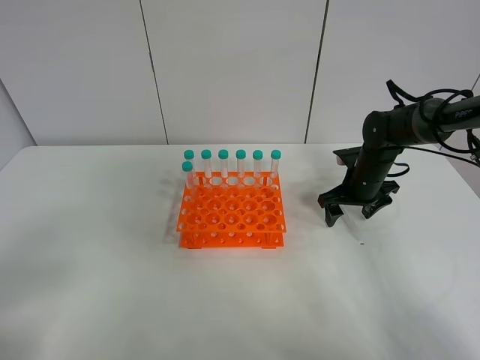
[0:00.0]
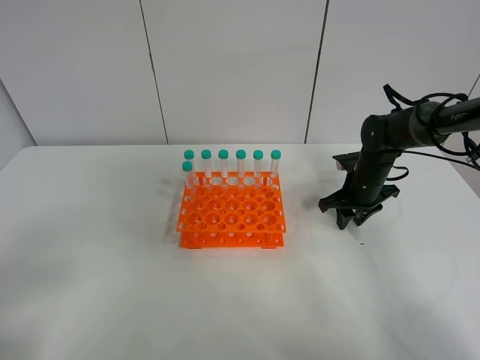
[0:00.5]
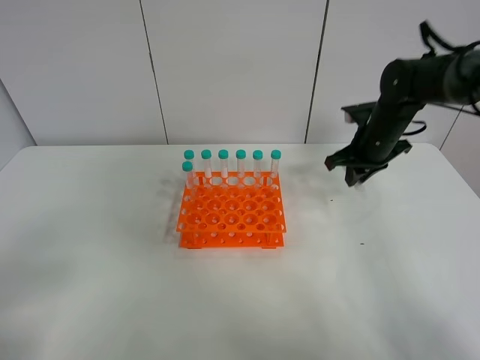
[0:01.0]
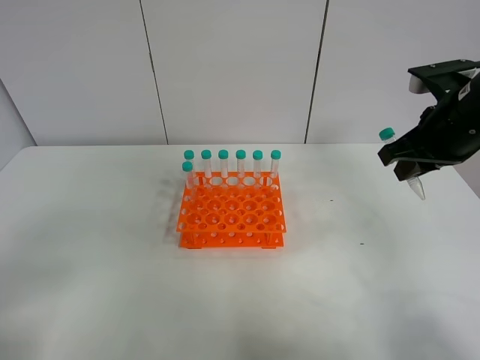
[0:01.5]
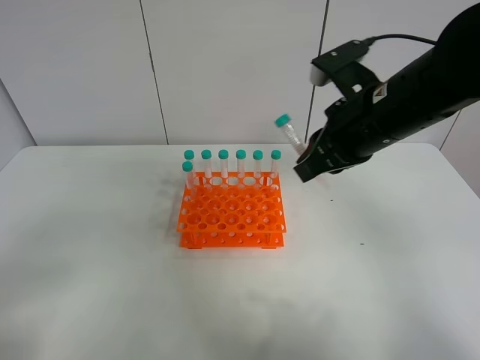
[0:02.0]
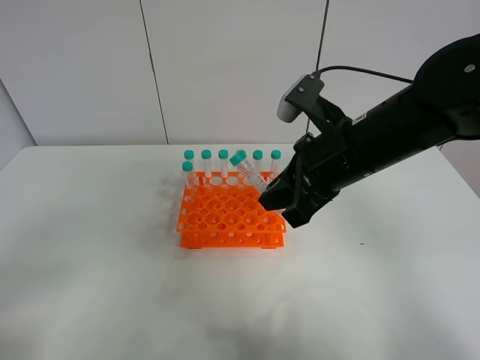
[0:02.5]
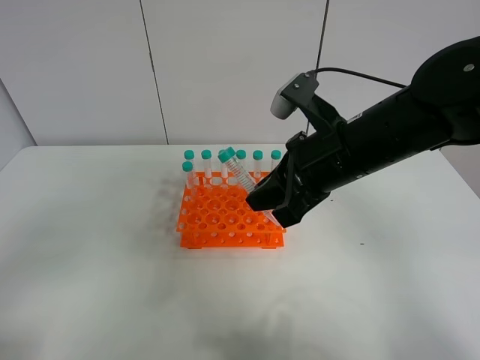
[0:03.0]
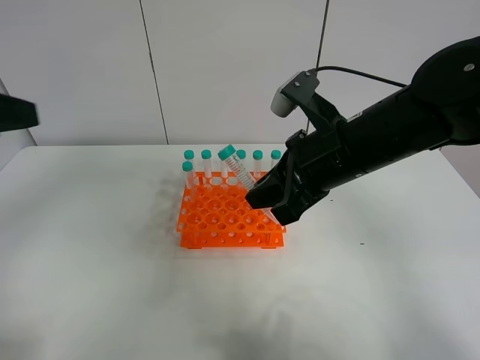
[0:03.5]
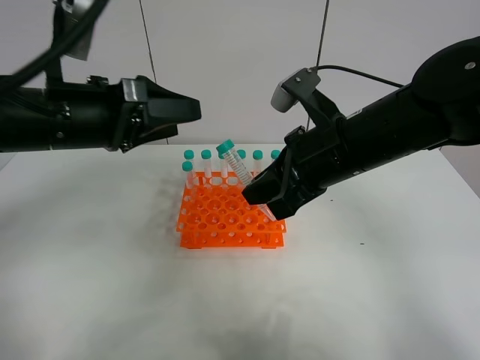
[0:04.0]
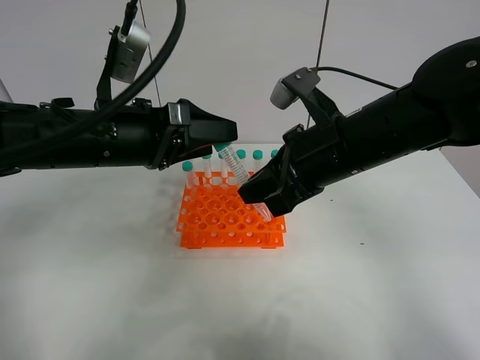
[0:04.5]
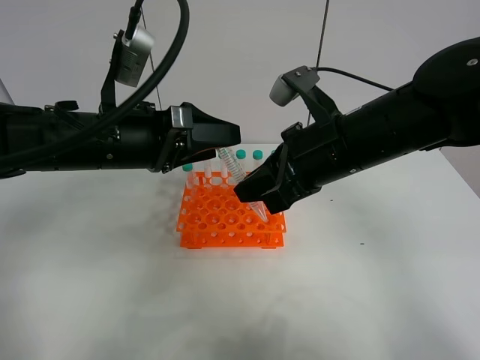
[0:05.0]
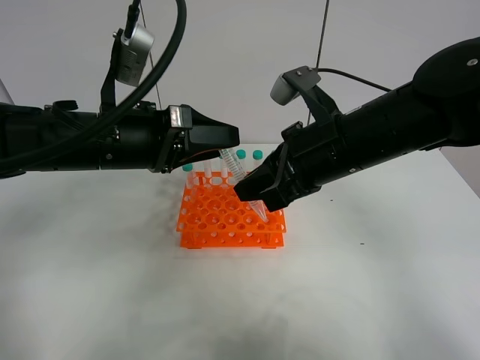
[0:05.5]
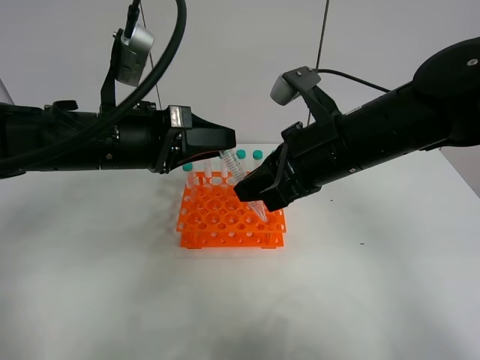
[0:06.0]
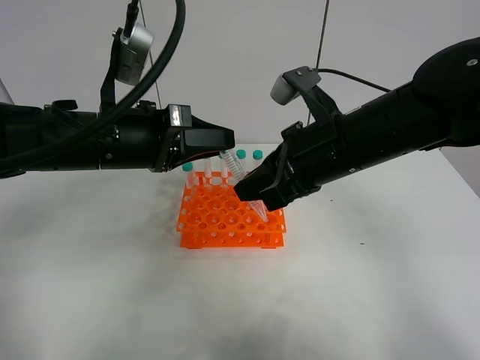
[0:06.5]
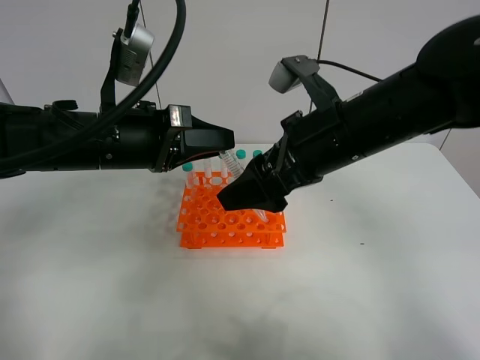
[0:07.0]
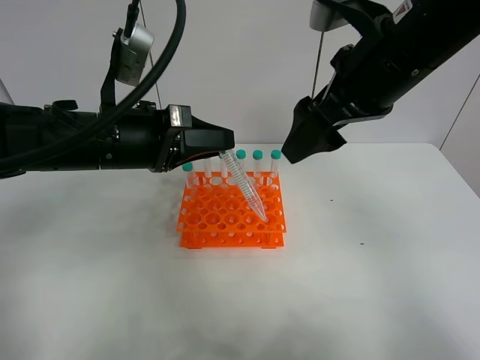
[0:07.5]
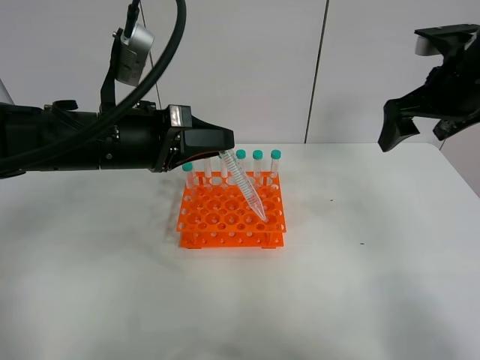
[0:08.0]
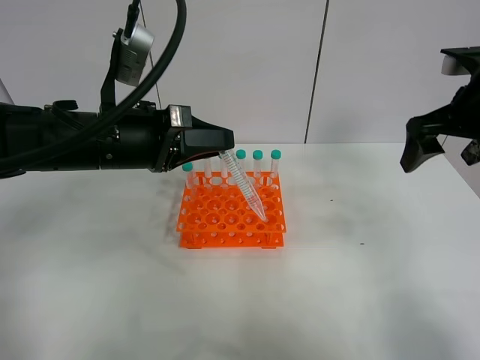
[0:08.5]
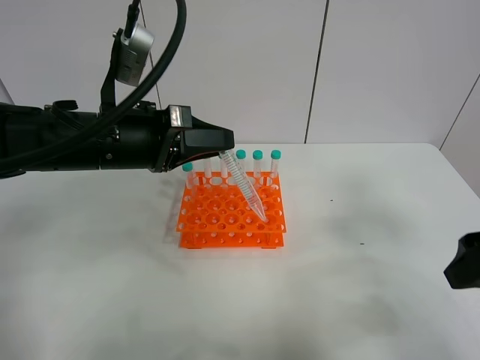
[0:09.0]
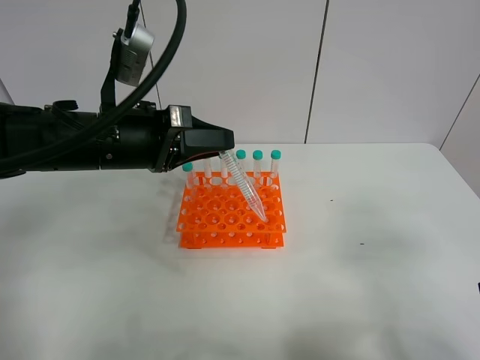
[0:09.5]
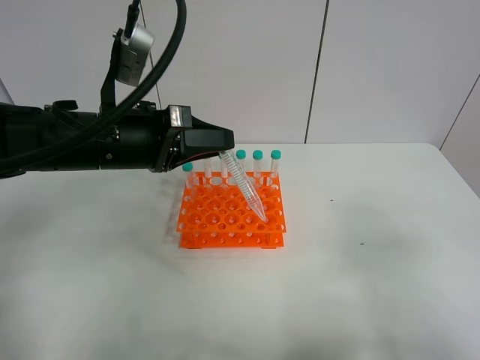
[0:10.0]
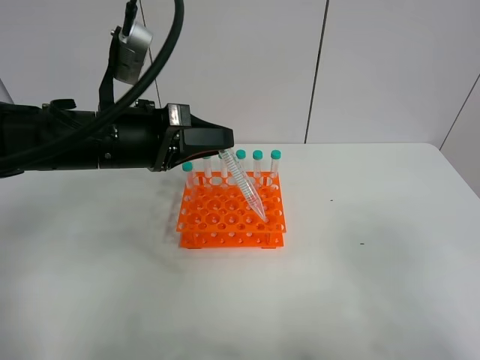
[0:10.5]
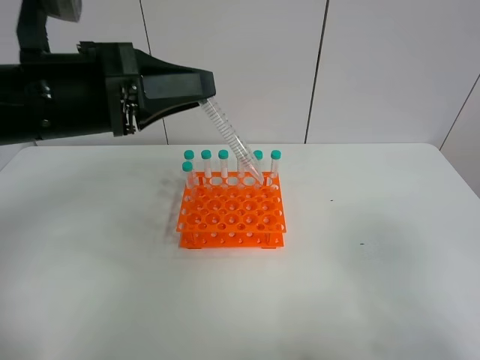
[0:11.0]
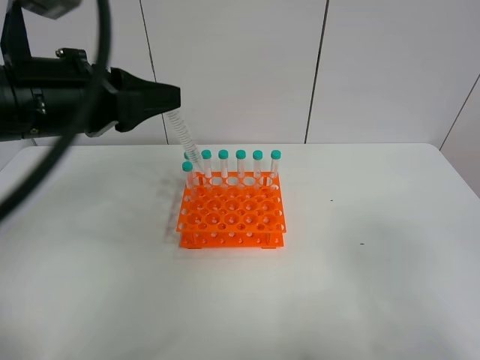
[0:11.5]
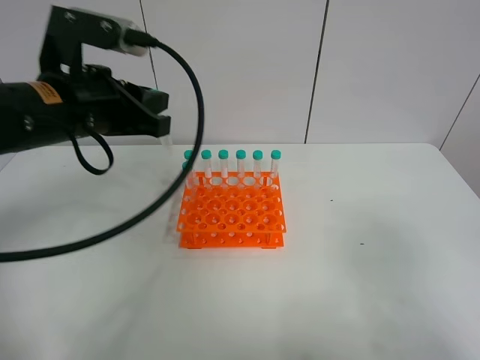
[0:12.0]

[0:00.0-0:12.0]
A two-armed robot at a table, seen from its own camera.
Task of the whole recording: Put the test tube on the table back onto the test tube rack.
Step, 0:01.0 to 0:06.5: Move the test tube from the right gripper to the left gripper.
0:00.0 to 0:02.0: The right gripper goes roughly 25 cm upward, backward and to the left, and closes its fingers.
0:02.0 to 0:04.0: The left gripper moves forward and to the right, roughly 30 cm.
0:04.0 to 0:06.0: The left gripper closes.
0:06.0 to 0:08.0: The right gripper travels to the right and forward by roughly 20 cm, and opens up.
0:08.0 to 0:10.0: The right gripper goes roughly 30 cm backward.

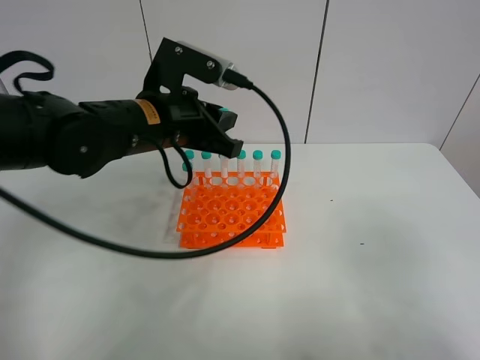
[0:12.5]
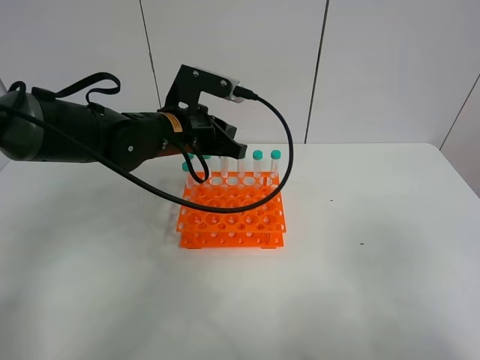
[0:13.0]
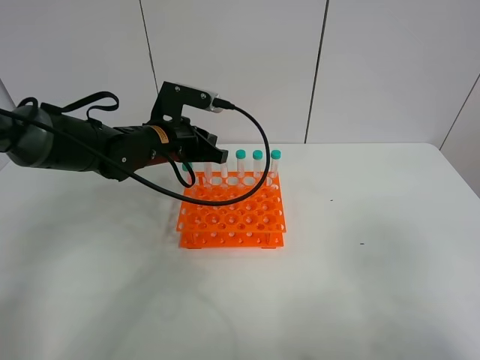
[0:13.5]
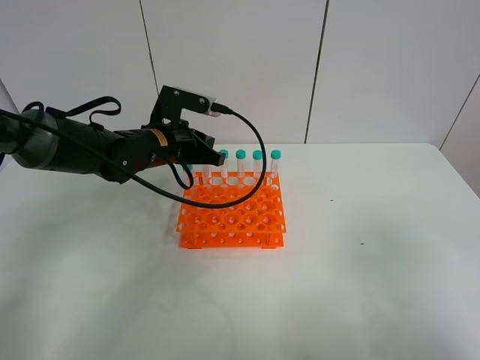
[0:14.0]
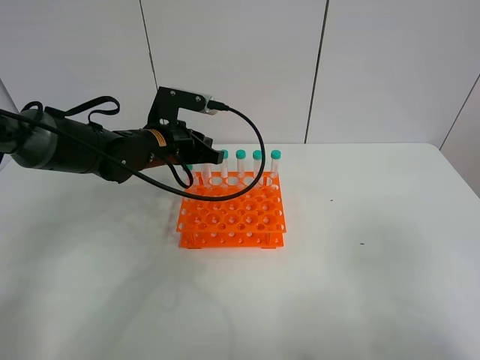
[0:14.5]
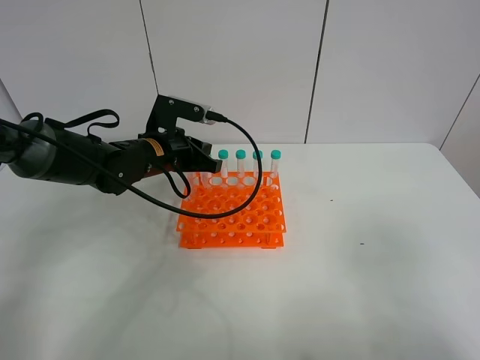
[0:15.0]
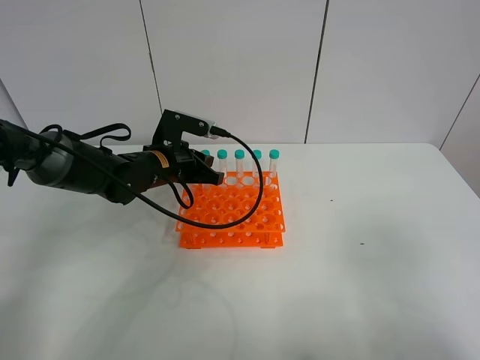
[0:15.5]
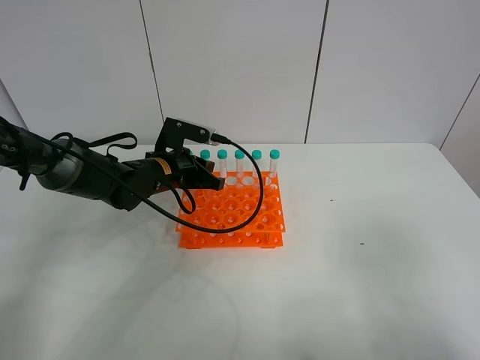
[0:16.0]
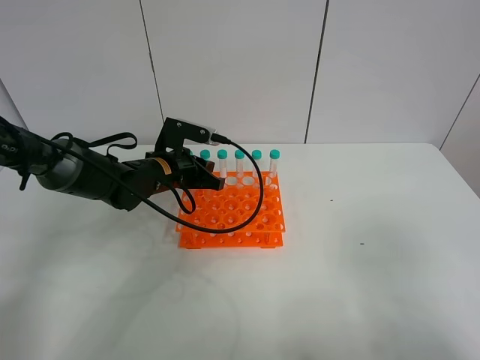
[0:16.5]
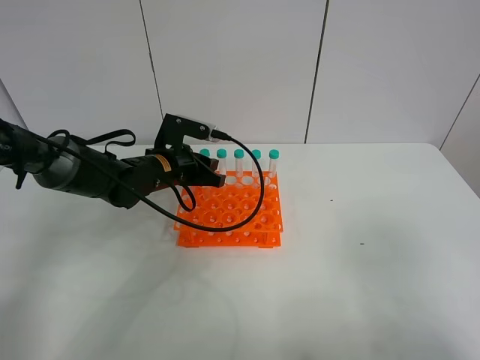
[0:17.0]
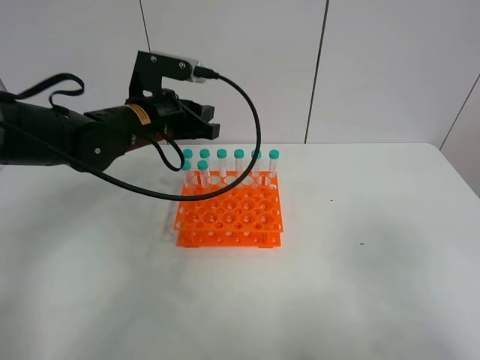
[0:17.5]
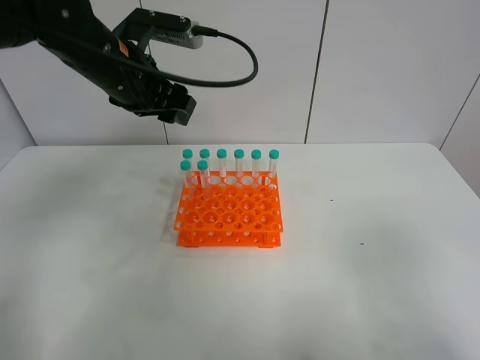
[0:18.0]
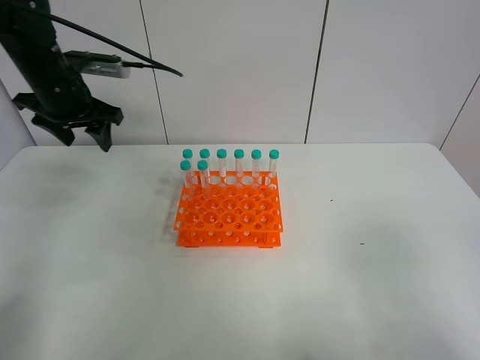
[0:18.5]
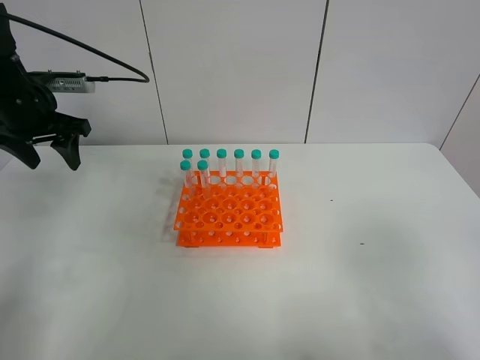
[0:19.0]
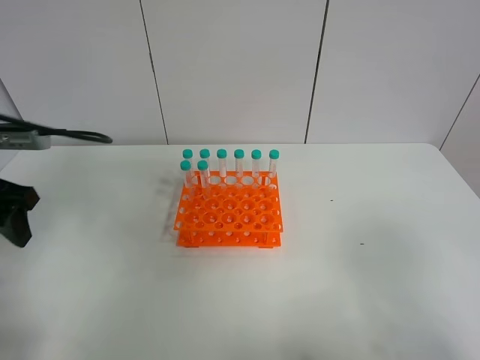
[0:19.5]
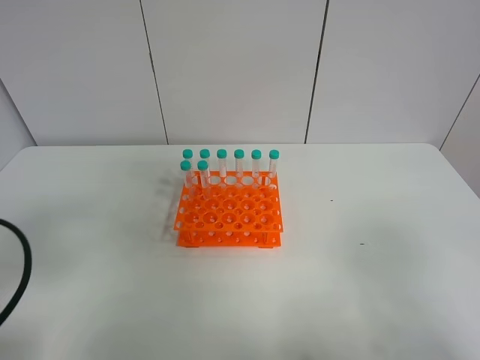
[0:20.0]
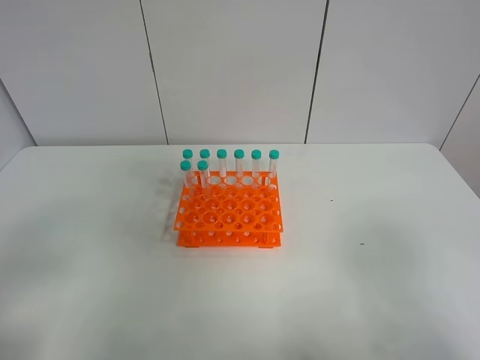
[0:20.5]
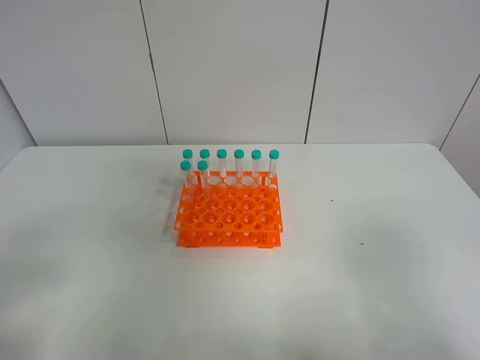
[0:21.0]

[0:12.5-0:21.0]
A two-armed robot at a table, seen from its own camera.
Task of the whole recording: Put the test tube on the table back onto the test tube rack.
Step, 0:12.5 to 0:16.5: Place the test tube on the test tube rack with the left gripper.
0:12.5 to 0:14.5: The left gripper is displaced downward and forward by some 10 cm.
0:14.5 to 0:16.5: The left gripper shifts roughly 5 cm downward.
0:16.5 to 0:19.0: The left gripper heads to the left and upward, covering some 25 cm, and opens.
0:19.0 to 0:21.0: The left gripper travels backward by some 35 cm.
